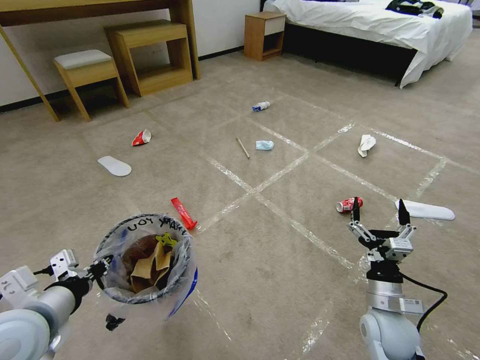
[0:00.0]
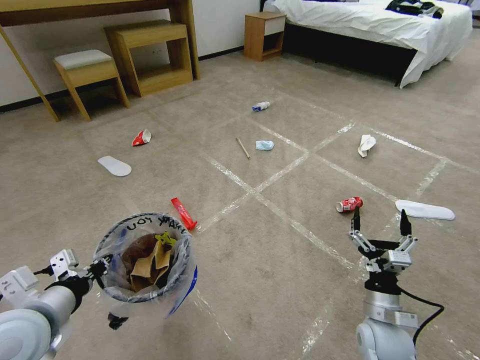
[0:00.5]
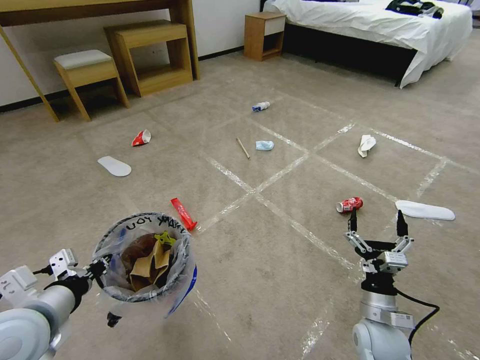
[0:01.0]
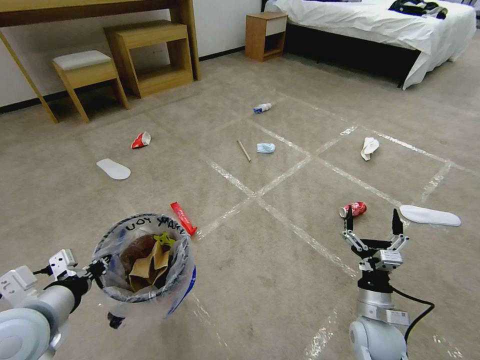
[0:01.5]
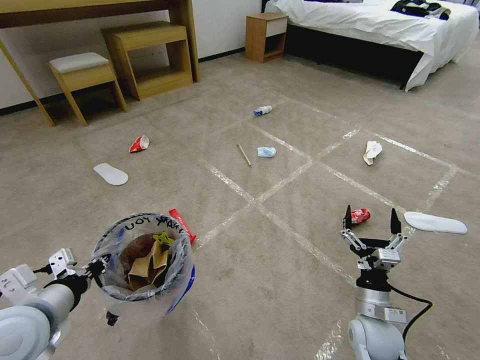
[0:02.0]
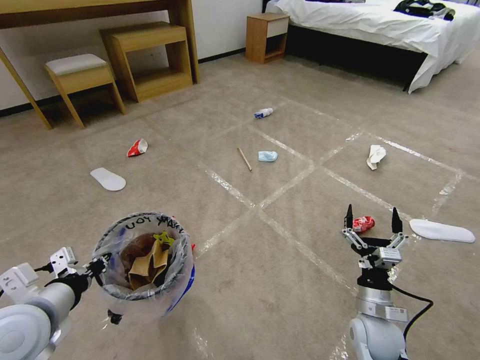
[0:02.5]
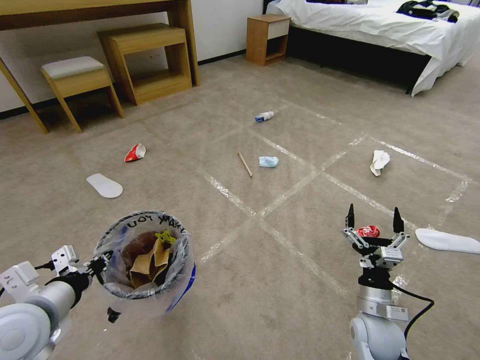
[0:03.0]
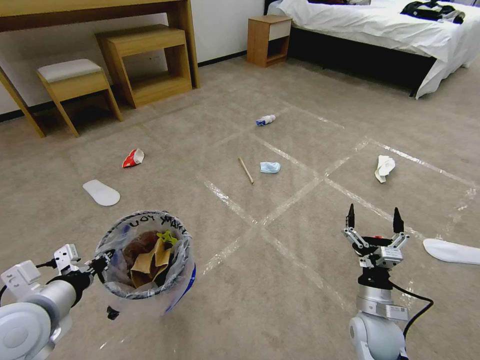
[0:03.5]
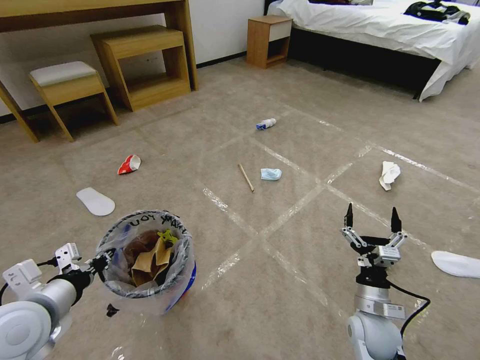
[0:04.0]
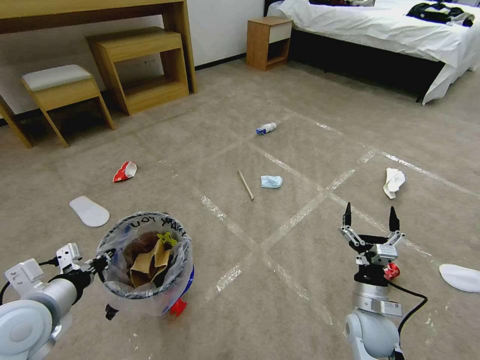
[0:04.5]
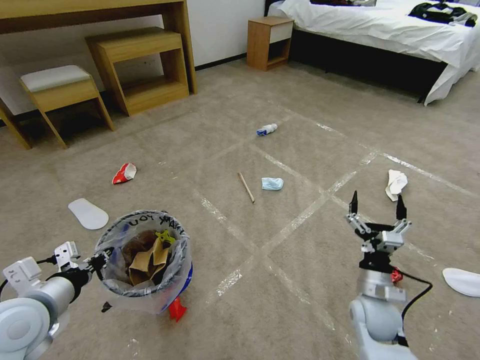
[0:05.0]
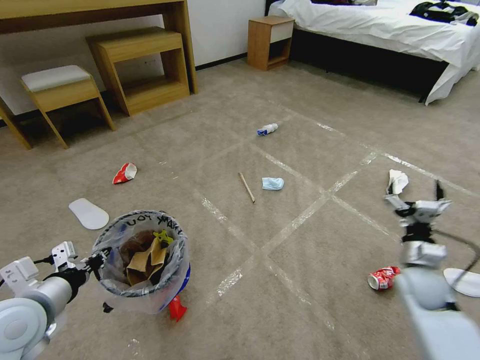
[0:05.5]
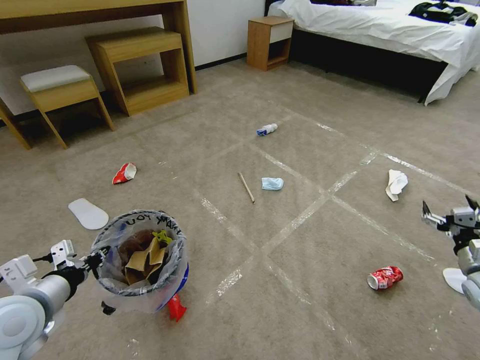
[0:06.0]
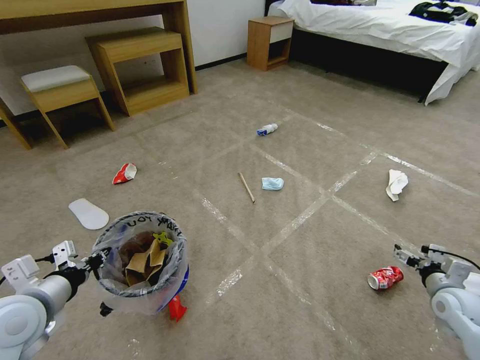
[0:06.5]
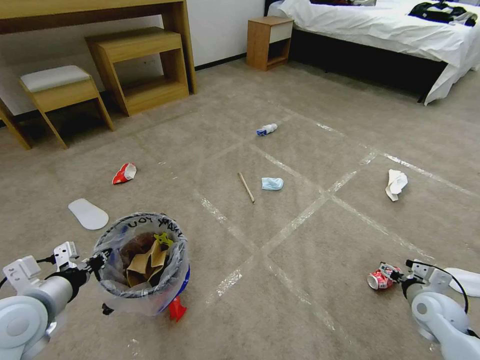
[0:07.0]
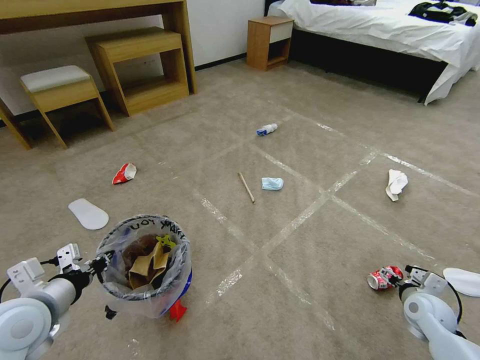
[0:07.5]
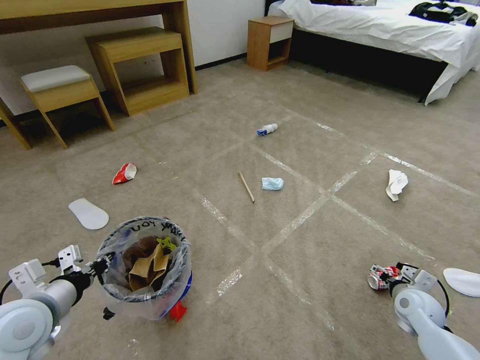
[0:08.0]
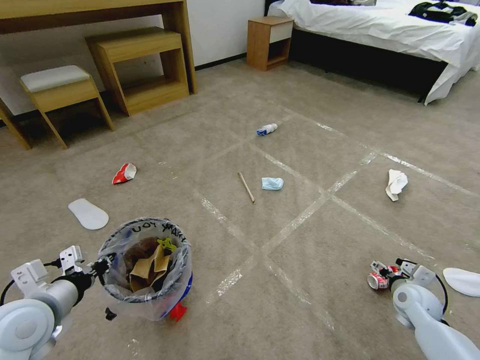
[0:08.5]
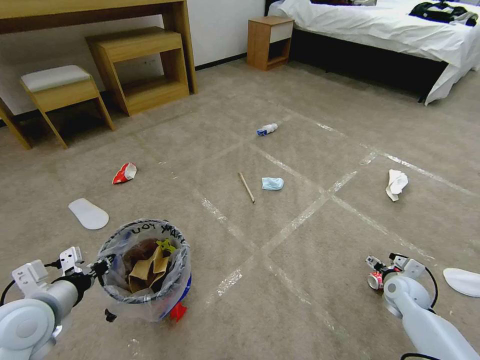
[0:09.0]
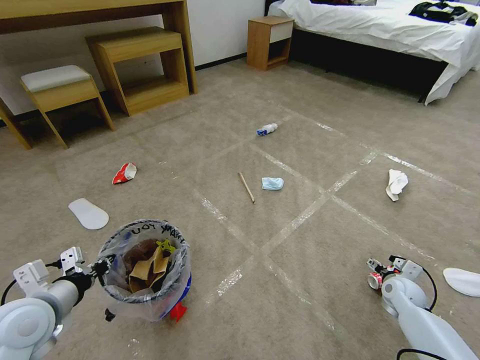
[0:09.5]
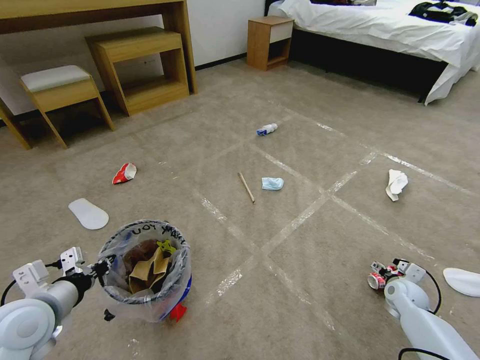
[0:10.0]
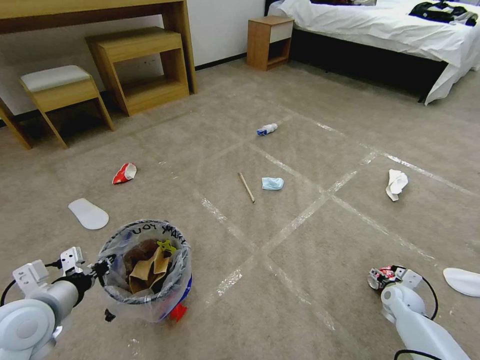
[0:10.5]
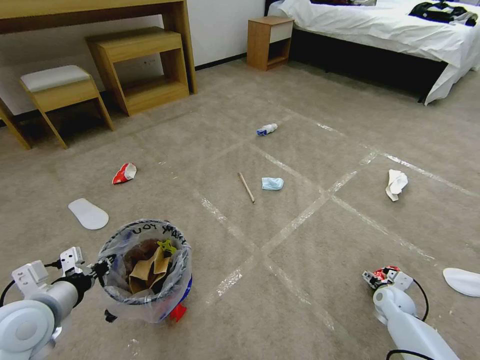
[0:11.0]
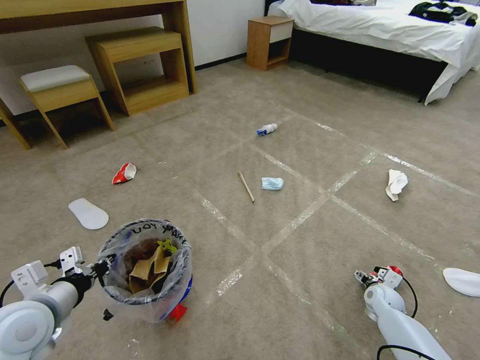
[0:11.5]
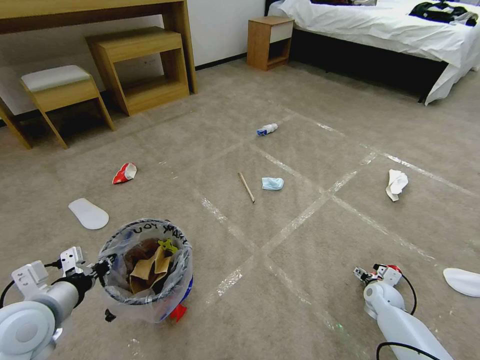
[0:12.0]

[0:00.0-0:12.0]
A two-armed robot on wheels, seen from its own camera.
Task of the whole recording: Pick up the trash bin and place the garbage on the floor into it.
0:00.0 to 0:02.0: The grippers stay close to where they were, moving slightly.
0:04.0 to 0:06.0: The right gripper goes about 30 cm to the right.
0:06.0 to 0:08.0: The right gripper is displaced to the left and downward by roughly 15 cm.
0:08.0 to 0:10.0: The right gripper changes place by some 5 cm.
0:10.0 to 0:12.0: The right gripper changes place by some 5 cm.

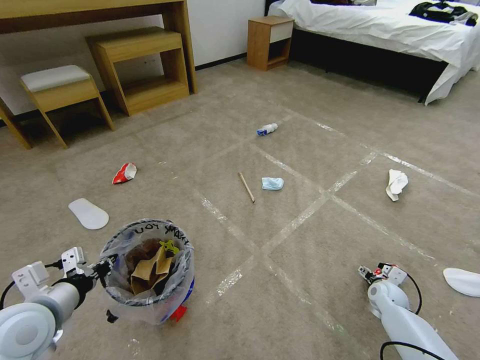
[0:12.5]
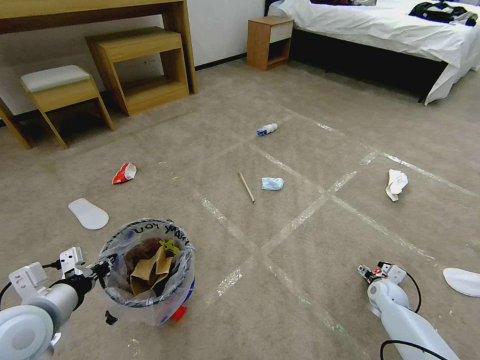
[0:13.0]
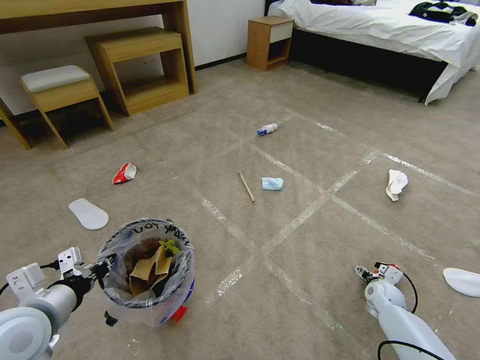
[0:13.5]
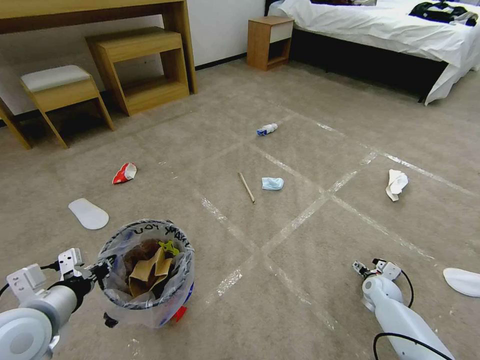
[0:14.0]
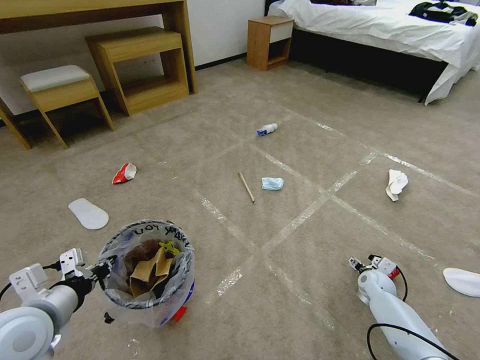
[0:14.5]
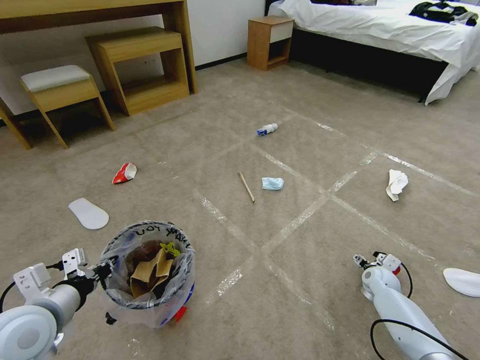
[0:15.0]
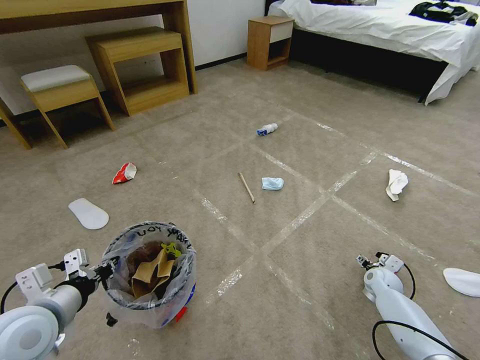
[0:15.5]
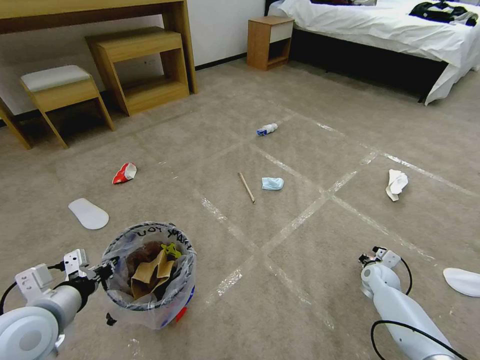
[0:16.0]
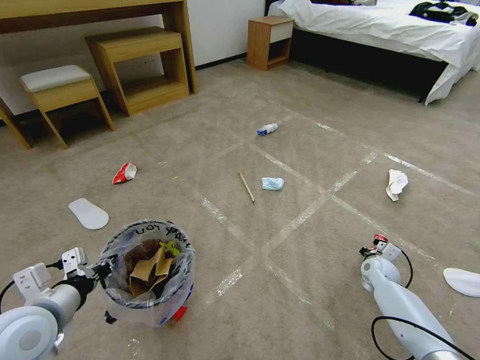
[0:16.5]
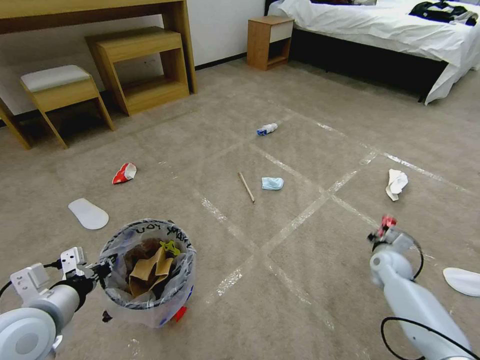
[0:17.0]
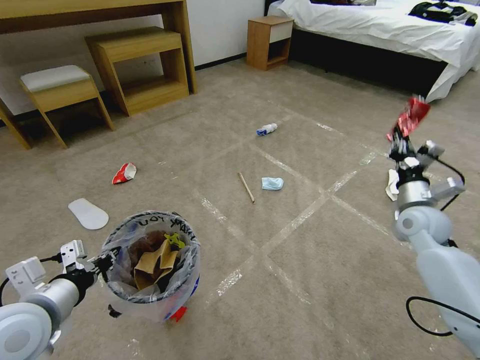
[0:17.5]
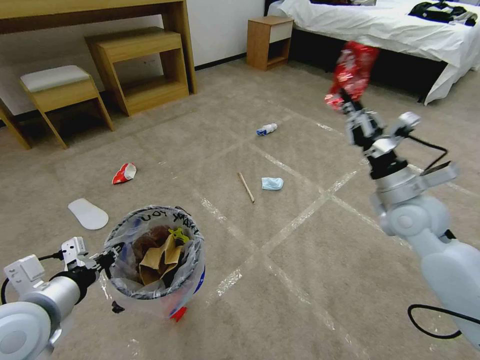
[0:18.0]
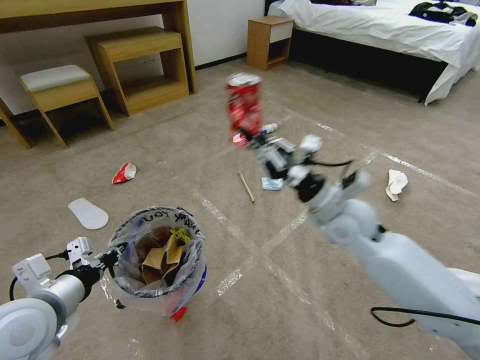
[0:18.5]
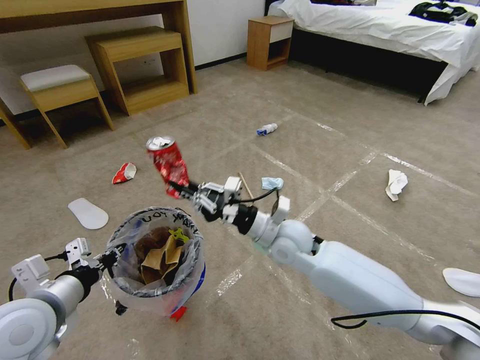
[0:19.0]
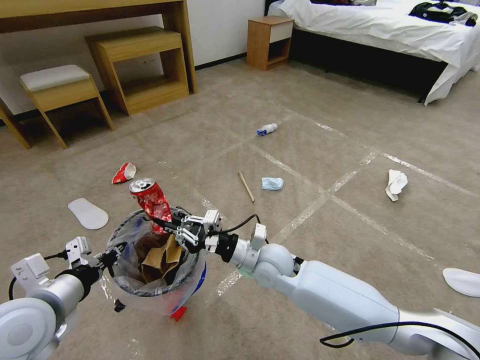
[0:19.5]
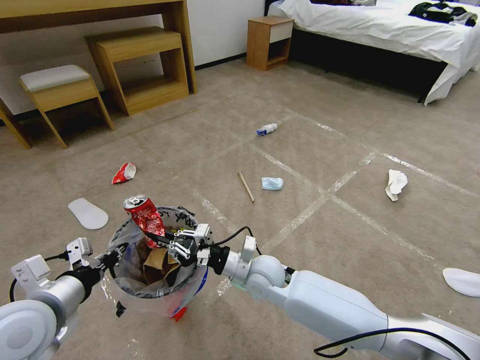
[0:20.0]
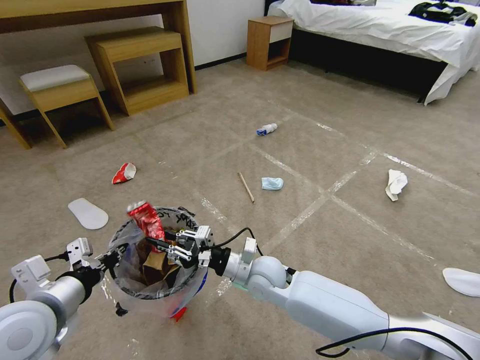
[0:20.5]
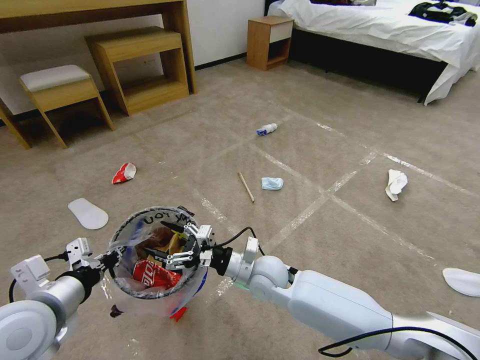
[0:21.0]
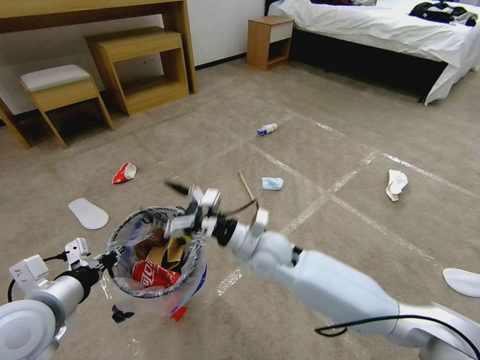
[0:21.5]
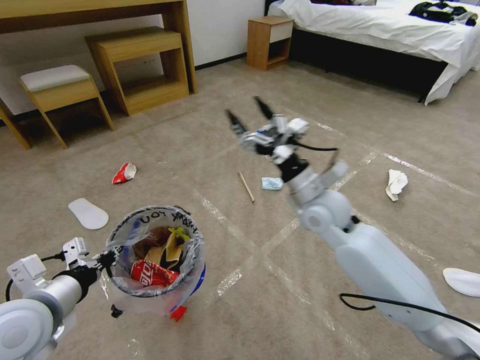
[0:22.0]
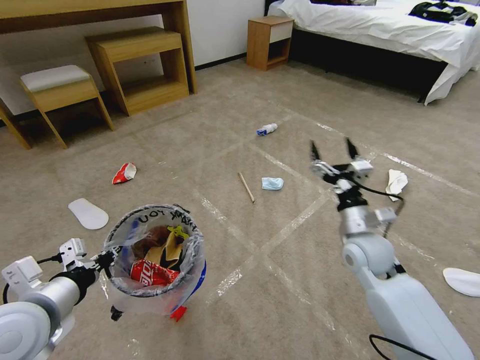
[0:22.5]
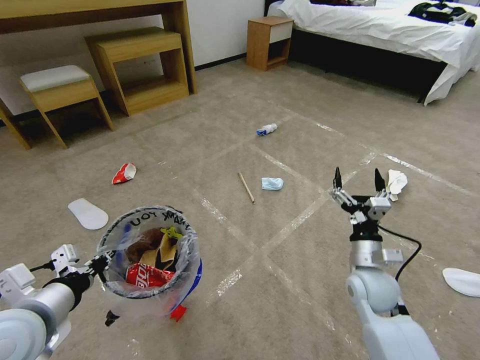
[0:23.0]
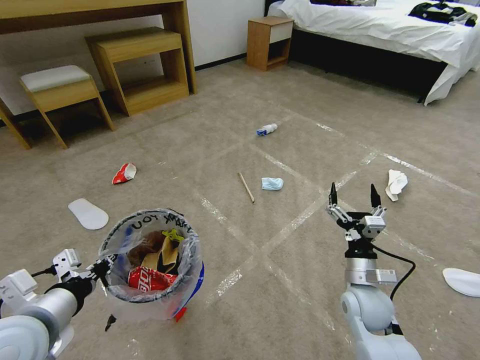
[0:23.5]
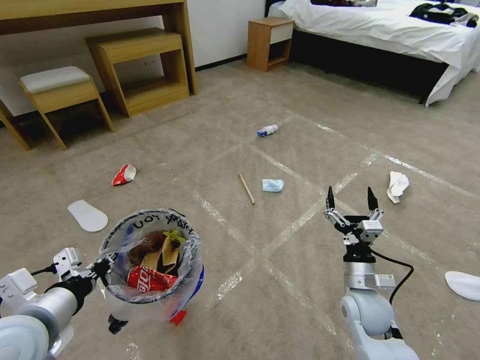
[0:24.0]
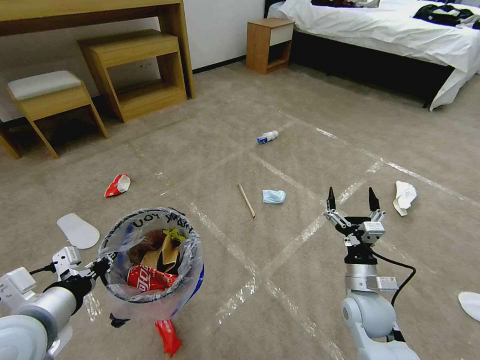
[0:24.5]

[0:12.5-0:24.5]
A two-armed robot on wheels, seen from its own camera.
Task of the whole recording: Pick up the trash bin and place the garbage on the floor into it.
0:12.5 to 0:14.5: There are only small adjustments of the grippers.
0:14.5 to 0:16.5: The right gripper closes.
0:16.5 to 0:18.5: The right gripper is displaced upward and to the left by approximately 35 cm.
0:18.5 to 0:20.5: The right gripper goes about 20 cm downward and to the left.
0:20.5 to 0:22.5: The right gripper travels to the right by some 20 cm, and opens up.
0:22.5 to 0:24.5: The right gripper is displaced backward and downward by some 15 cm.

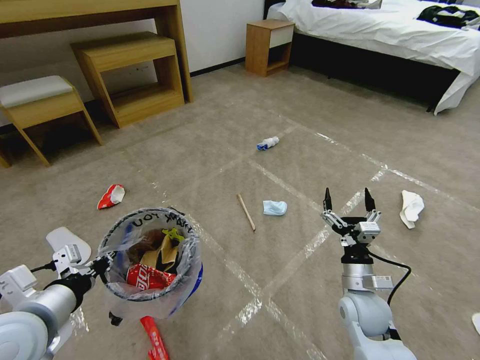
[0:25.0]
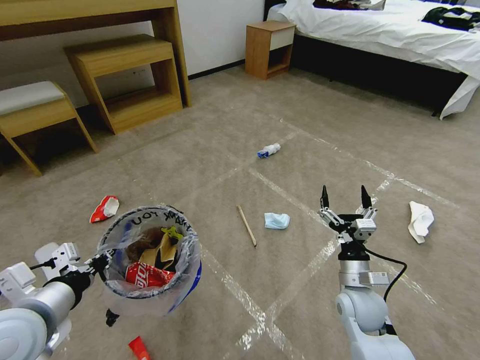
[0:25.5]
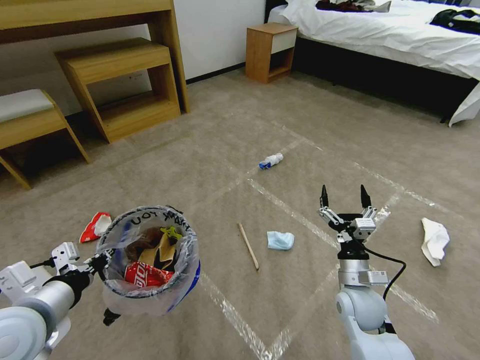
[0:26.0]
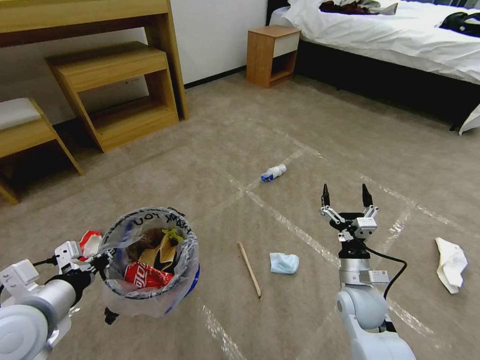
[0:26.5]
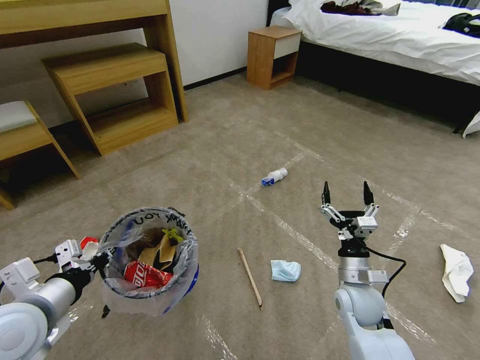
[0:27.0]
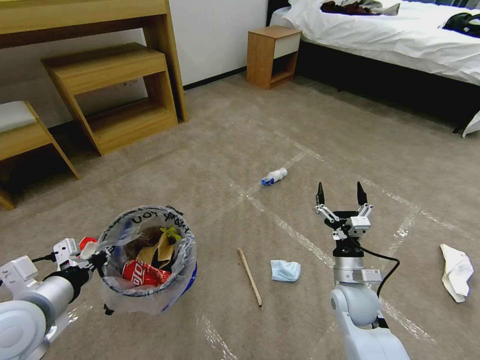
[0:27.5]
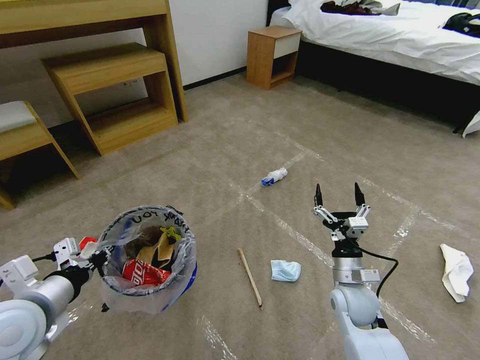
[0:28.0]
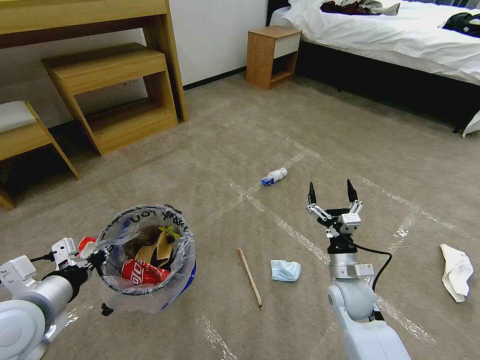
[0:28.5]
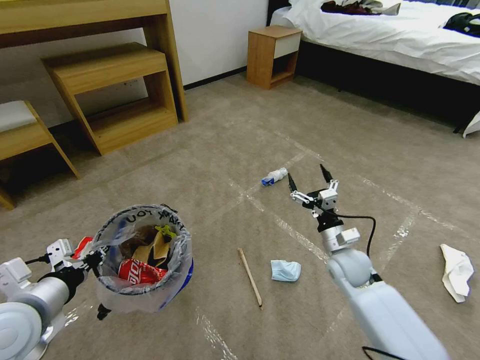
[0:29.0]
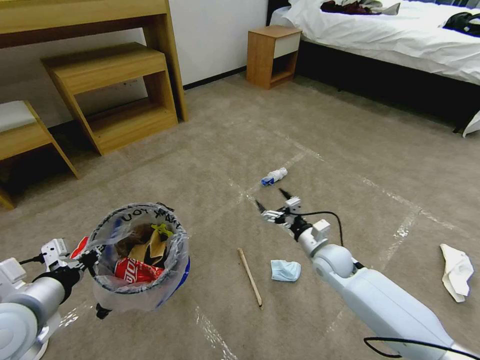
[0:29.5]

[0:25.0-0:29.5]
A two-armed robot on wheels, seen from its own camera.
Task of the whole recording: Pick up the trash bin and place the garbage on the floor into it.
0:27.0 to 0:29.5: The right gripper is displaced forward by about 10 cm.
